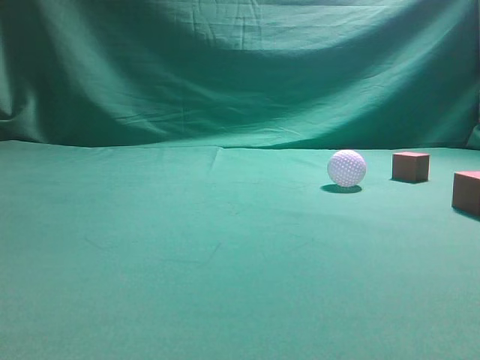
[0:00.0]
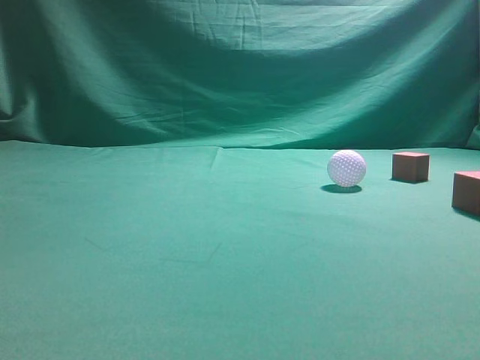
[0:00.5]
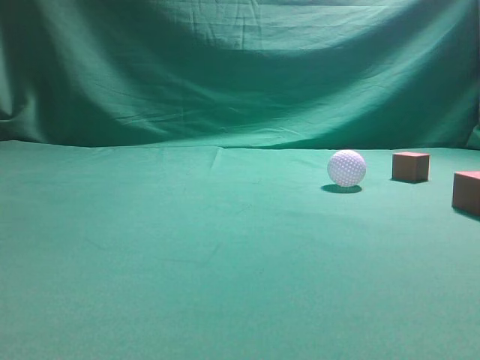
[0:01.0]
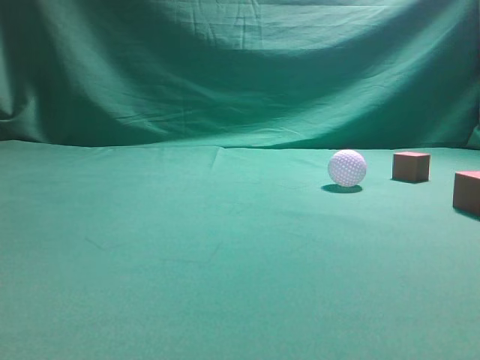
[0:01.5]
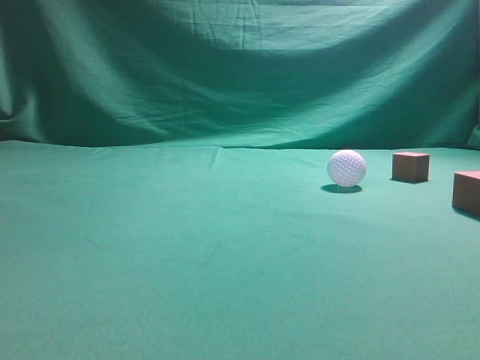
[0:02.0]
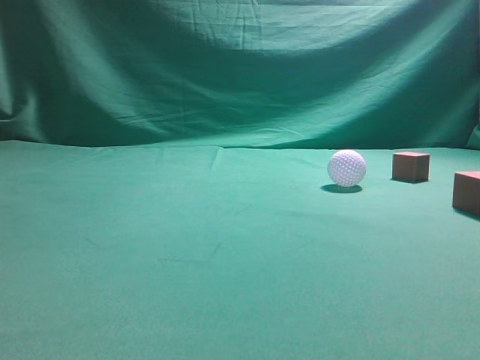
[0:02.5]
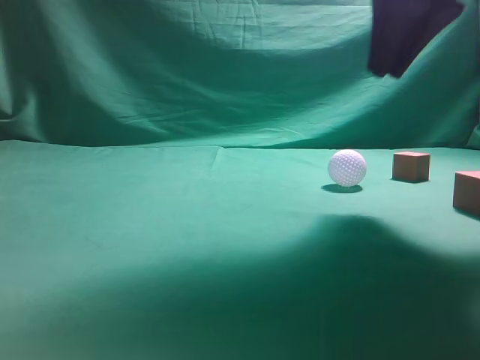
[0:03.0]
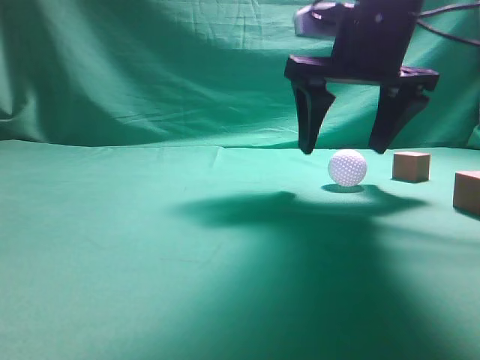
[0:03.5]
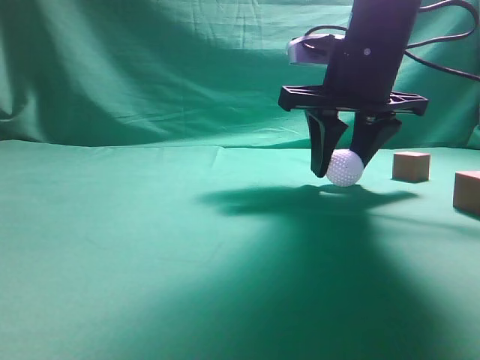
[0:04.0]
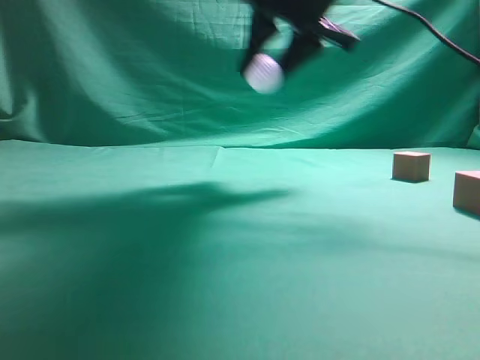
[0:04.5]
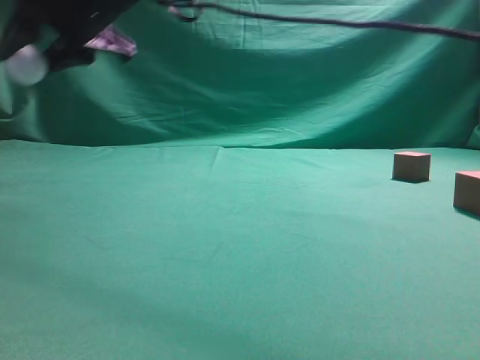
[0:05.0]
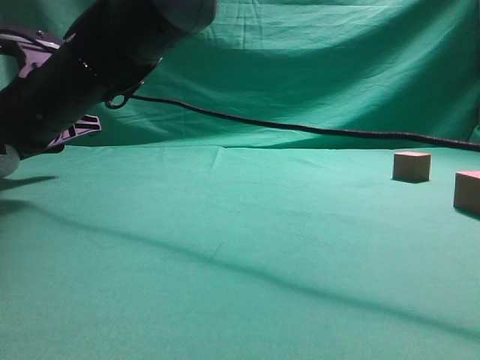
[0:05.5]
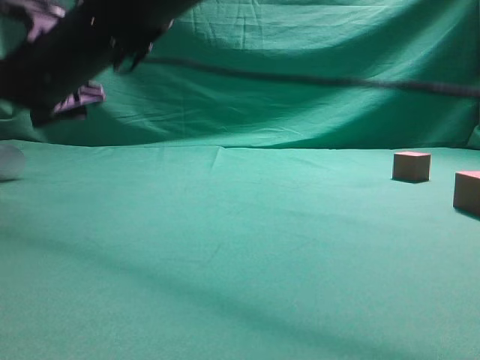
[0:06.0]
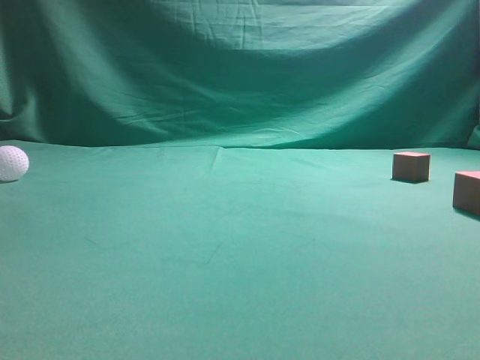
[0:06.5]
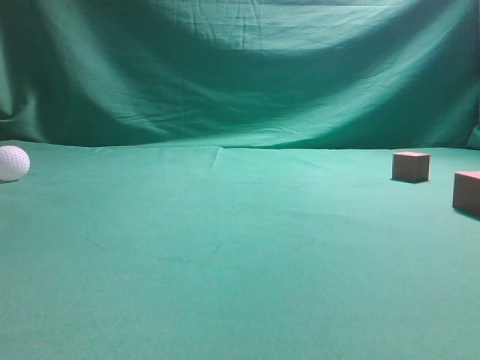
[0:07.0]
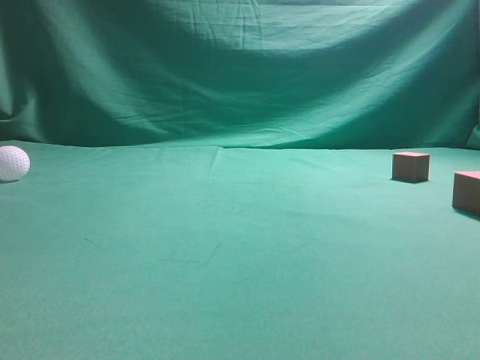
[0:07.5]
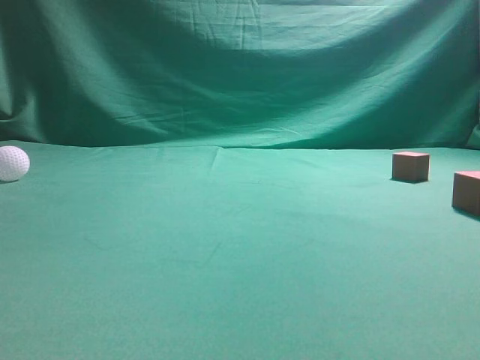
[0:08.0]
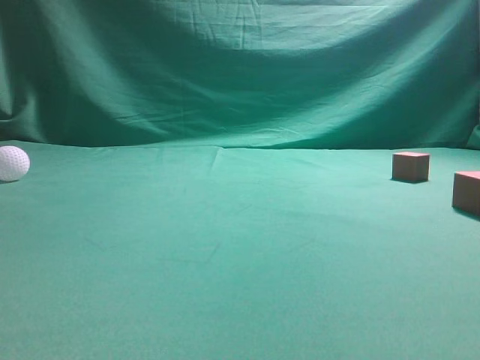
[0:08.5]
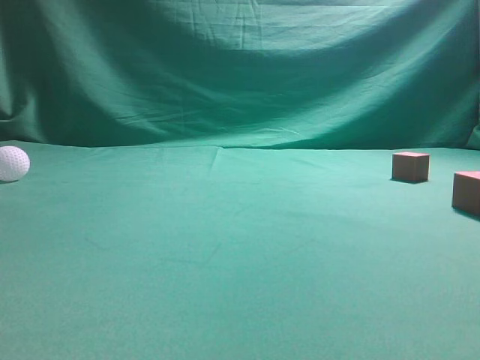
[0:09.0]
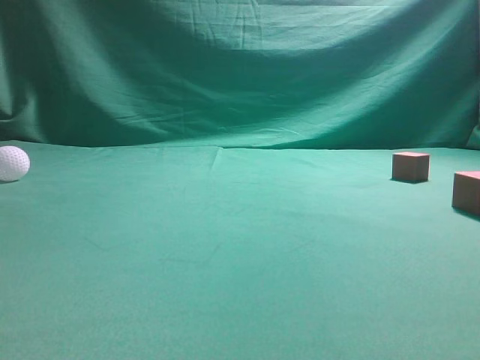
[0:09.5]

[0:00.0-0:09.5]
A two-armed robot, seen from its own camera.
Step, 0:00.0 to 0:04.0: Grasp the spherical object on the right side.
0:02.0 to 0:04.0: The right gripper shifts about 35 cm forward, to the left and downward, and opens.
0:04.0 to 0:05.5: The right gripper travels to the left by approximately 30 cm.
0:05.5 to 0:07.5: The right gripper moves to the right, upward and backward, roughly 50 cm, and closes up.
